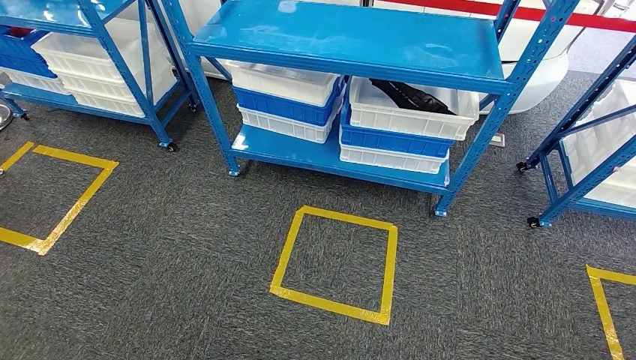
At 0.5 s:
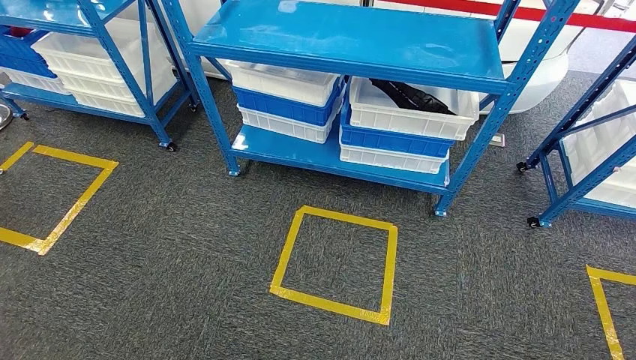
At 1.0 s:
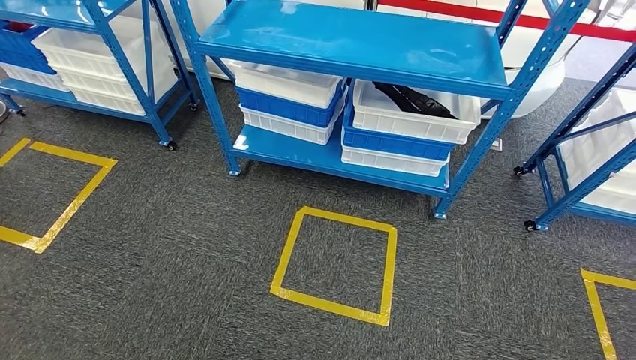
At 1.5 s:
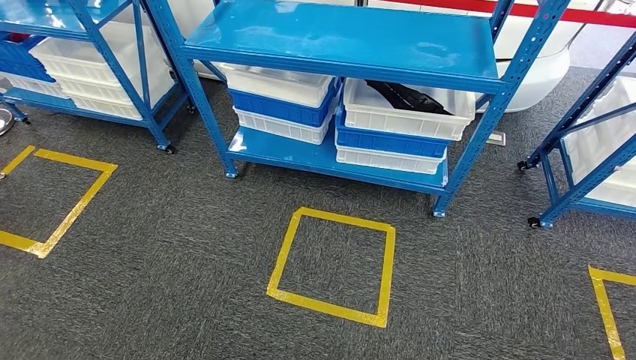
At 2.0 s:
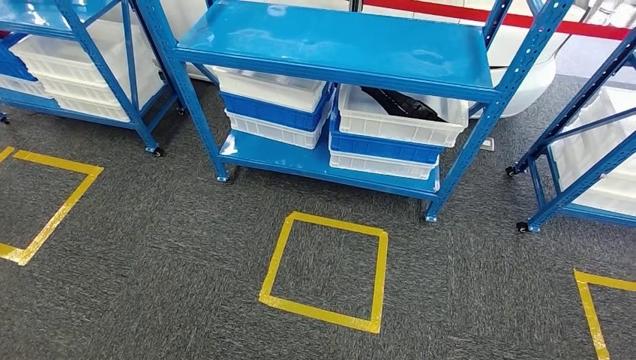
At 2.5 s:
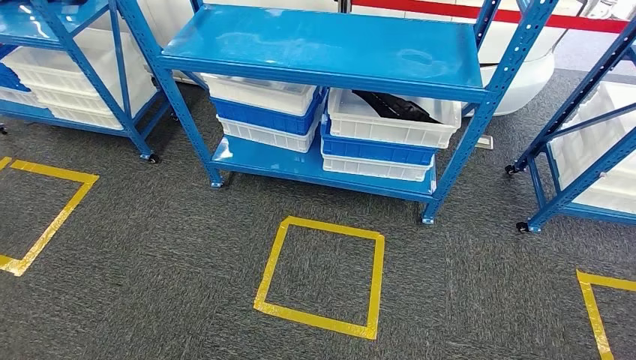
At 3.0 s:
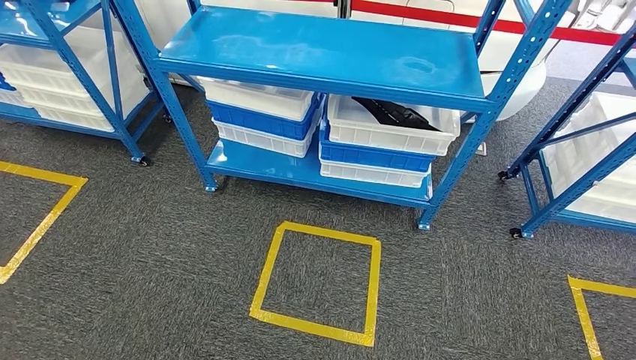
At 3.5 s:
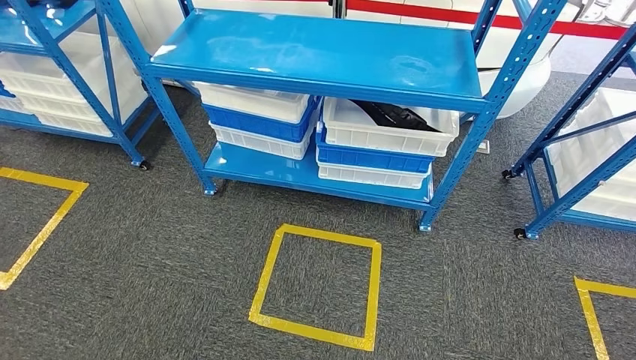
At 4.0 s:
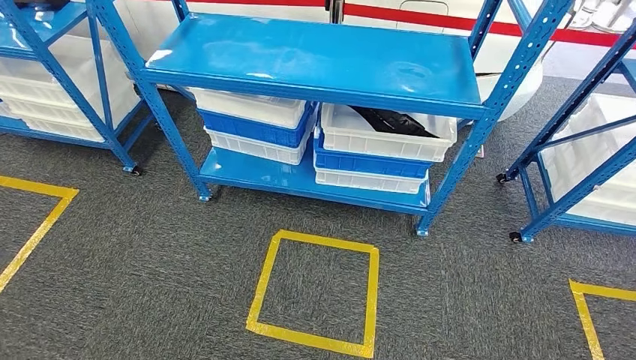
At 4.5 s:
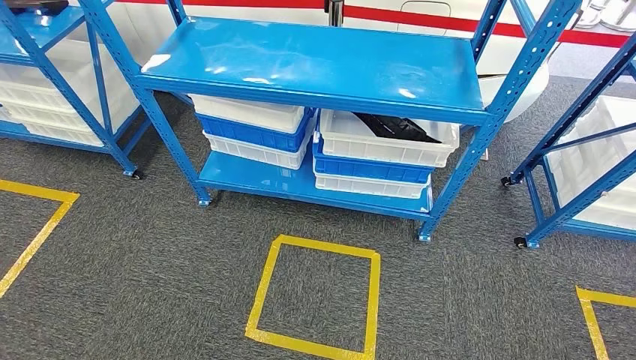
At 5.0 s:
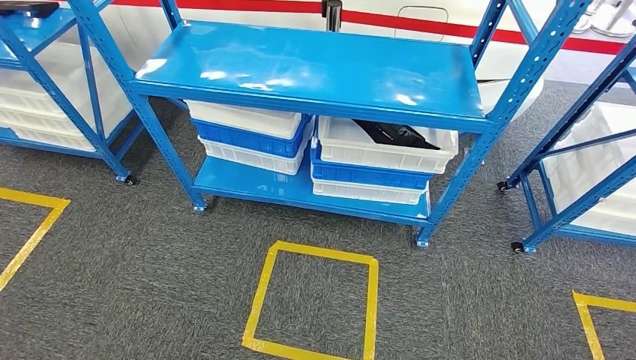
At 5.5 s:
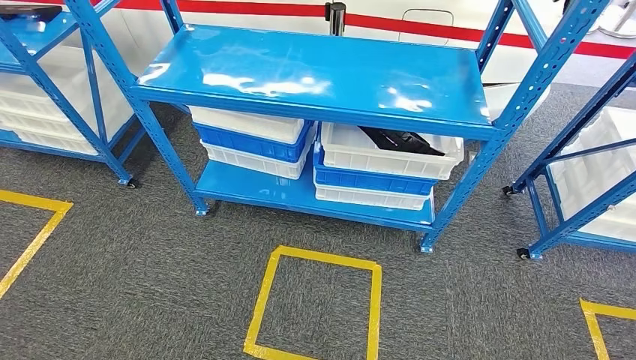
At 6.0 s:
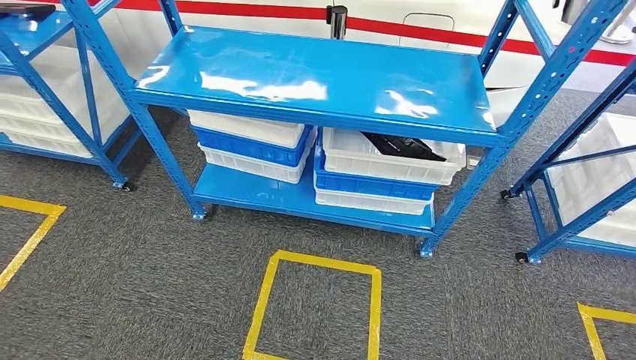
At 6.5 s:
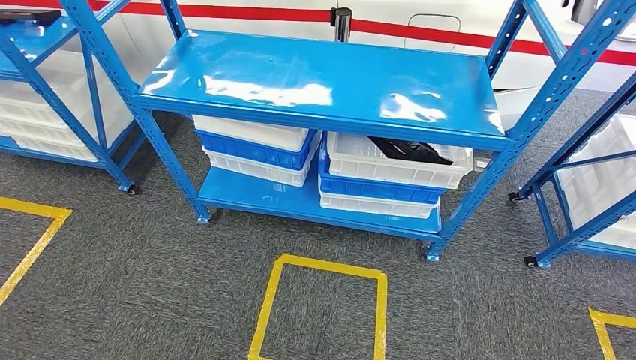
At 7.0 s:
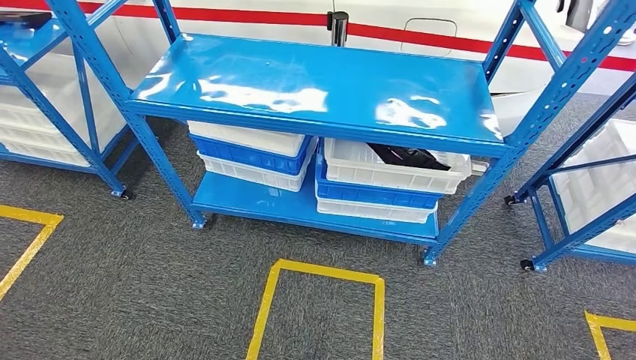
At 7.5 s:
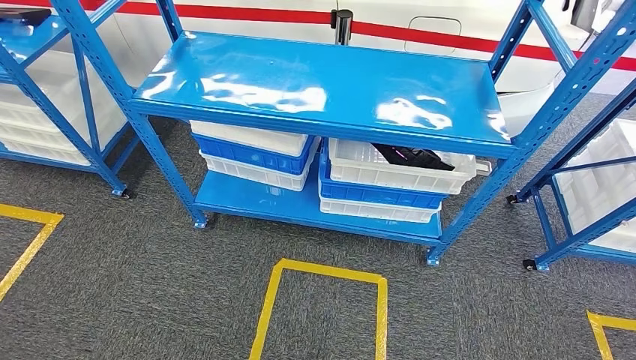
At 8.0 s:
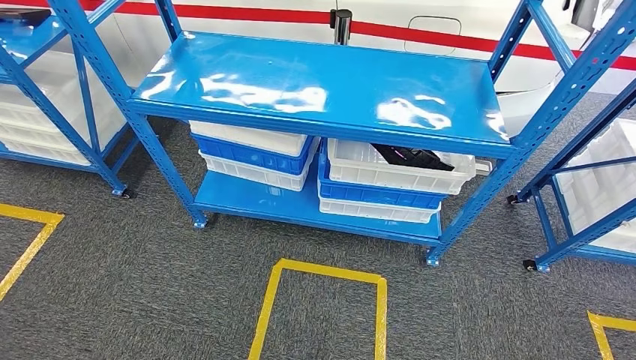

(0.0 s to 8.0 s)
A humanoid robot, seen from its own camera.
Step, 0.0 s - 8.0 s: Move to the initial position of the shelf.
